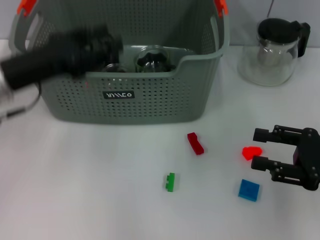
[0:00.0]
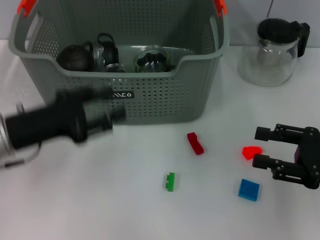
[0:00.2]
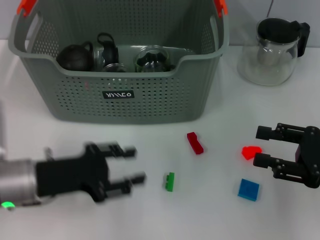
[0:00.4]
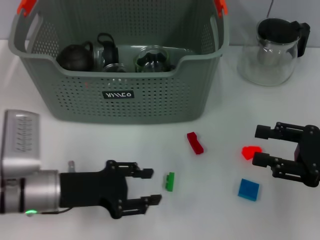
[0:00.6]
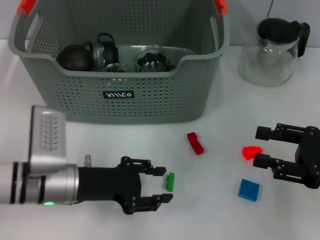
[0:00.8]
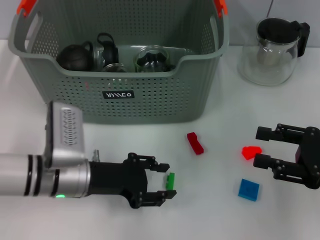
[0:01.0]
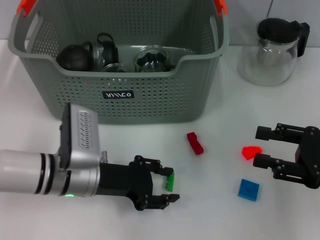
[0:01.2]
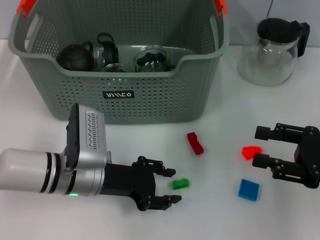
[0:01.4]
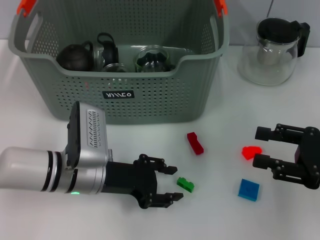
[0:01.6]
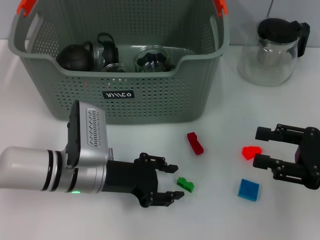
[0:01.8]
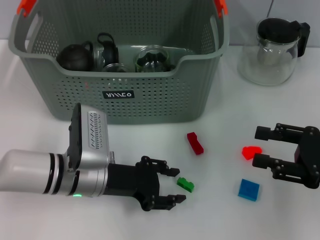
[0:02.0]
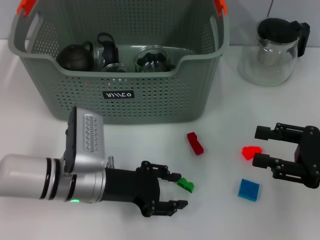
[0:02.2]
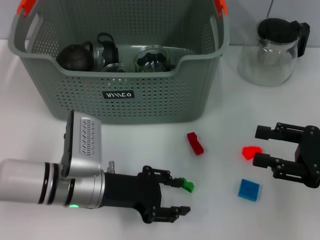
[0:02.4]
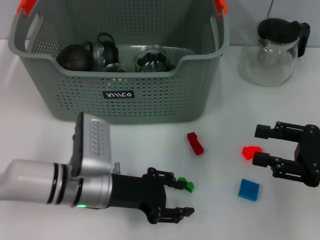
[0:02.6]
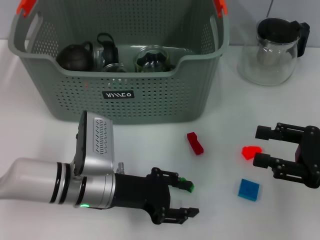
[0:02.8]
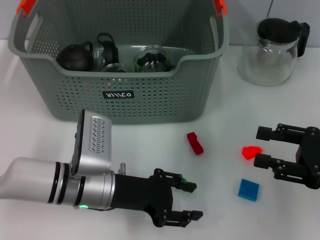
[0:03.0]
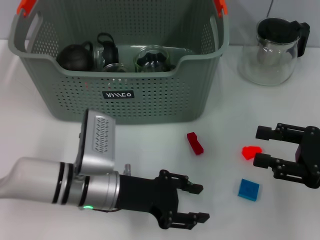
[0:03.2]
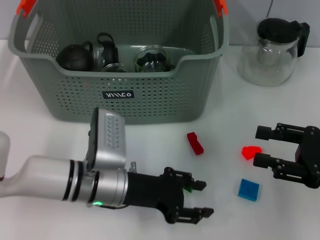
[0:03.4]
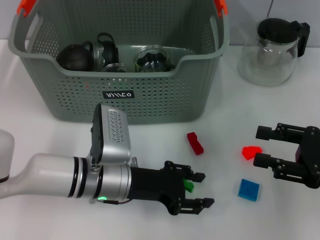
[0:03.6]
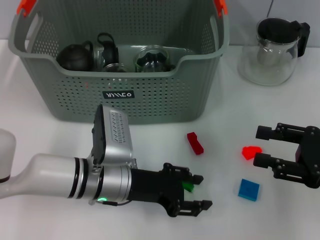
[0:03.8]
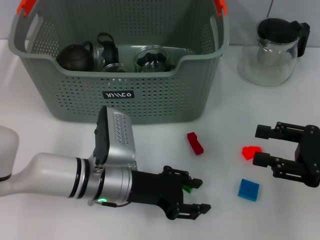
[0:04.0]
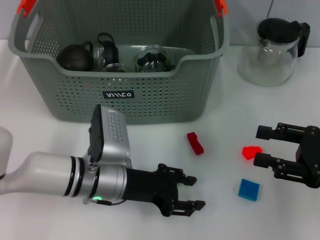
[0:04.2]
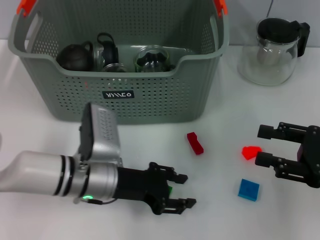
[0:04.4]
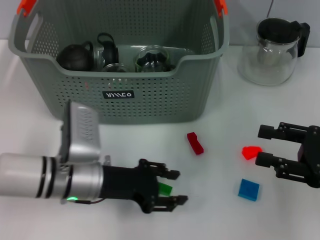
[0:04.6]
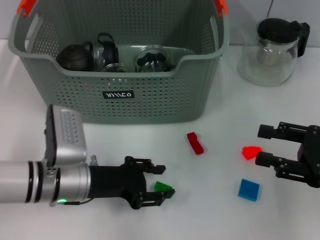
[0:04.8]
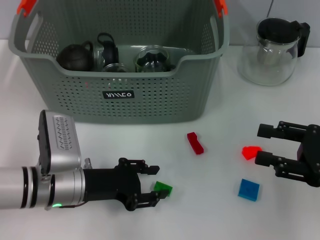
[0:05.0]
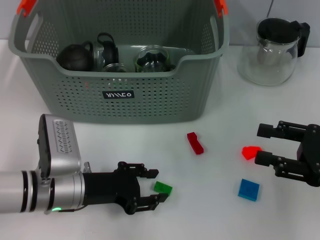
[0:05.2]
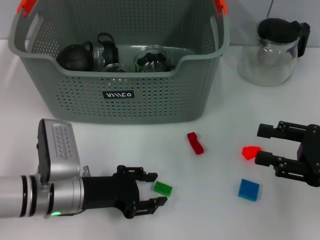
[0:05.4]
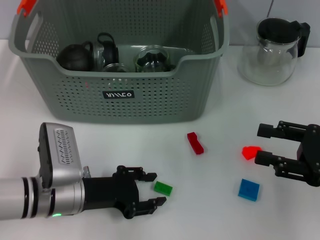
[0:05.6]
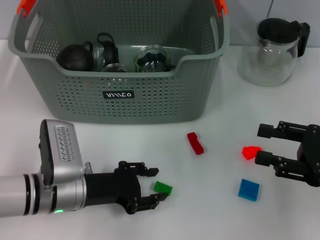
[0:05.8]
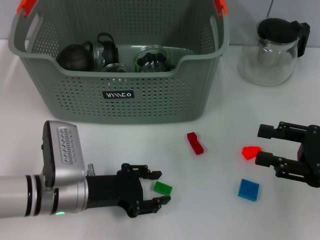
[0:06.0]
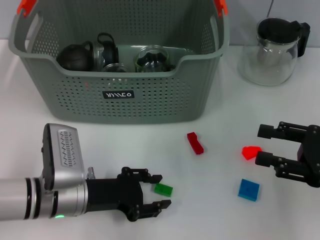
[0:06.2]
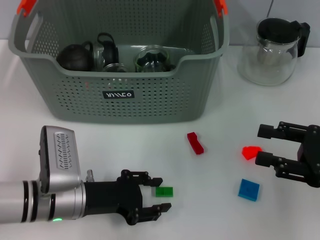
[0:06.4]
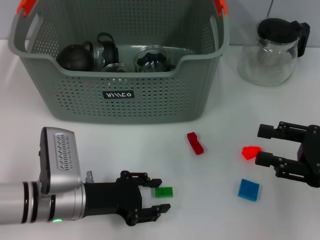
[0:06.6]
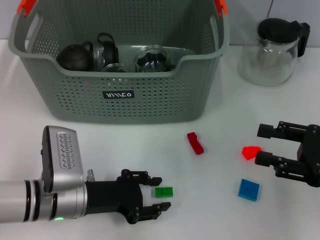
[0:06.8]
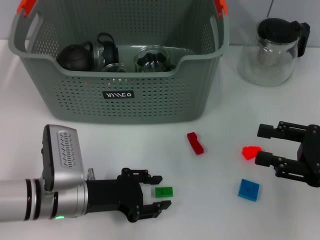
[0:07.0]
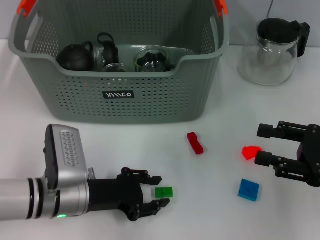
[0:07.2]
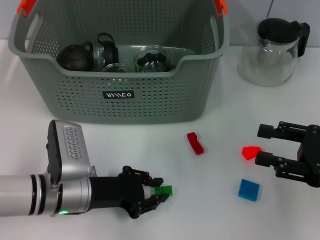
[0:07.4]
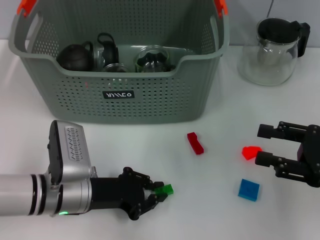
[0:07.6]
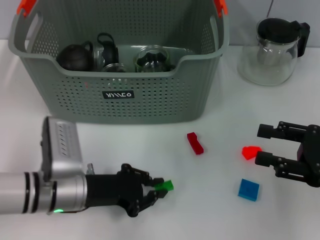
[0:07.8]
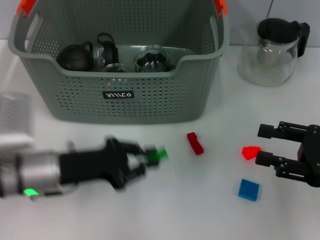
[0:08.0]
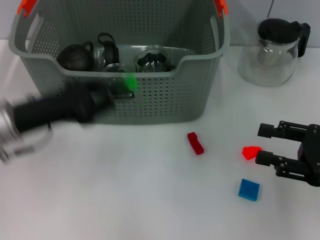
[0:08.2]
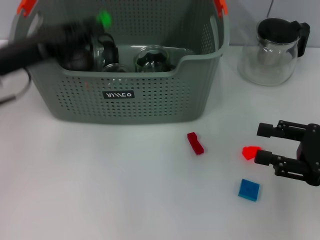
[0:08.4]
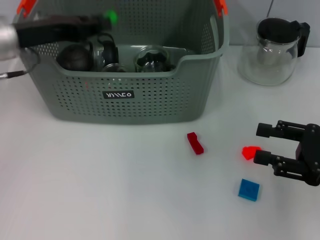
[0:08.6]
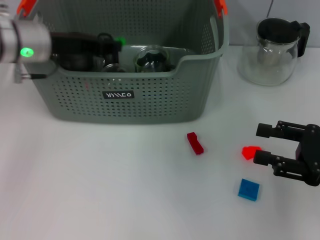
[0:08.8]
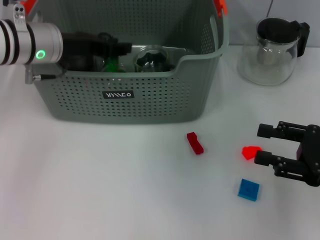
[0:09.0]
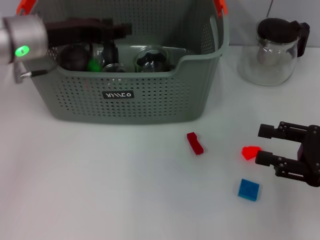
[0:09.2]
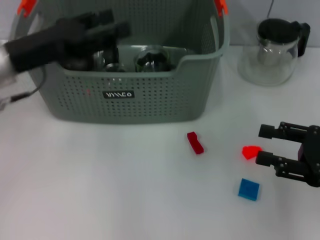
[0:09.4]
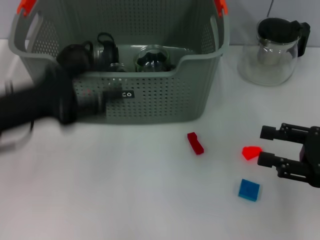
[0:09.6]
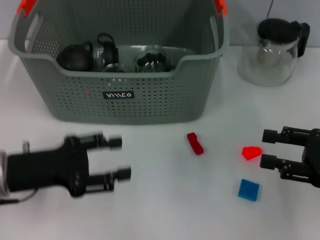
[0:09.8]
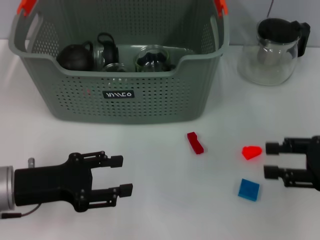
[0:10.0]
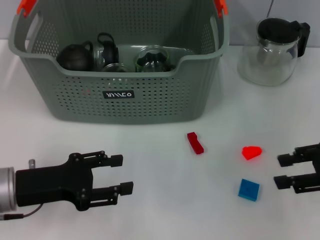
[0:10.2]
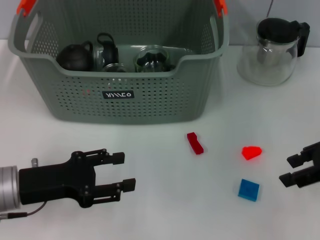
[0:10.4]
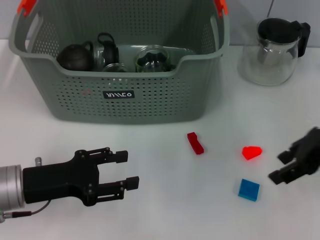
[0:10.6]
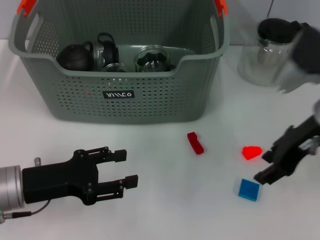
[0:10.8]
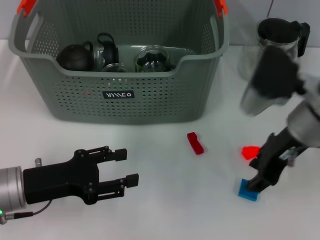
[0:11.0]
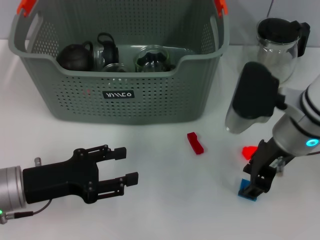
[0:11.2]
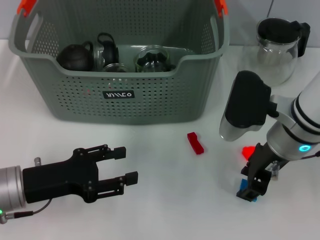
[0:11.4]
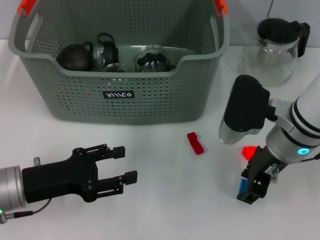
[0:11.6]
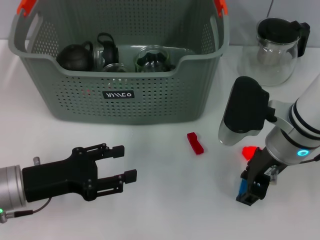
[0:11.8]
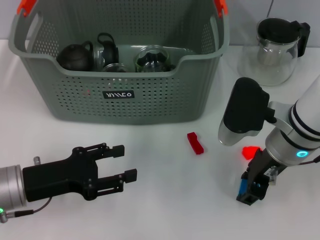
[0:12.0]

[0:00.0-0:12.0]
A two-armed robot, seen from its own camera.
Task of the whole recording: pick up the teacup on the table and place it into the storage bin, pick up the block on the table and place it into the storage bin.
Step, 0:00.0 to 0:07.4: Grasp the green block with left gripper.
Step, 0:07.8 to 0:09.2: Place the green block in the storage box with left gripper.
0:00.0 to 0:01.6: The left gripper moves downward and to the right, roughly 15 cm.
0:01.6 to 0:06.0: The grippers stay close to where they were, moving slightly.
0:06.0 to 0:07.6: The two grippers keep their place.
0:07.6 to 0:09.0: The left gripper heads upward and forward, covering some 20 cm.
0:09.0 to 0:10.4: The left gripper moves backward and downward, approximately 20 cm, and opens. The right gripper shifts some 10 cm upward and forward.
0:10.4 to 0:12.0: The right gripper goes some 15 cm to the left.

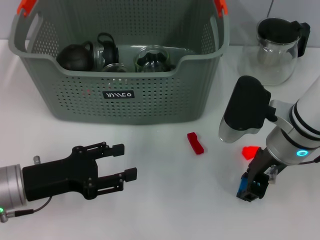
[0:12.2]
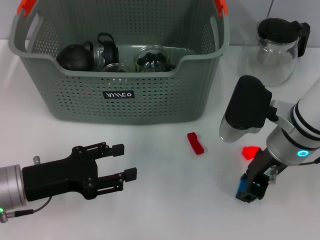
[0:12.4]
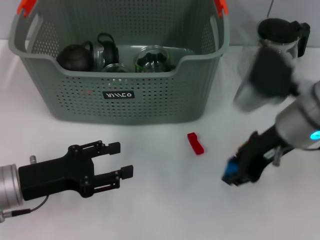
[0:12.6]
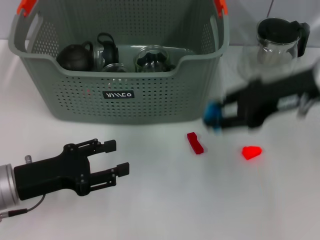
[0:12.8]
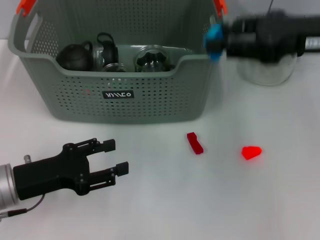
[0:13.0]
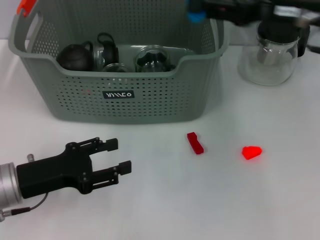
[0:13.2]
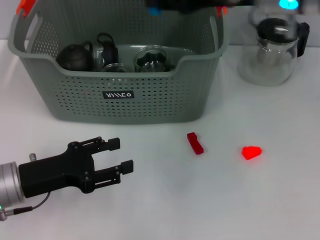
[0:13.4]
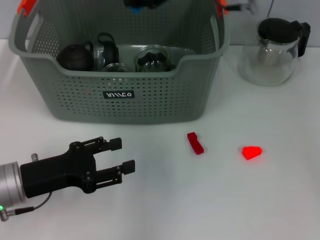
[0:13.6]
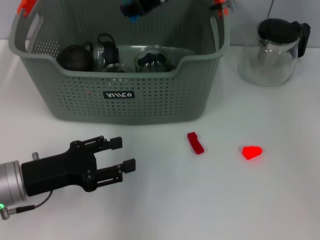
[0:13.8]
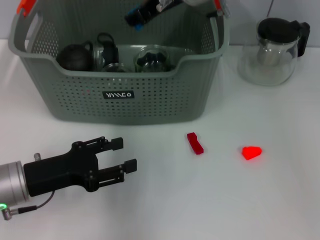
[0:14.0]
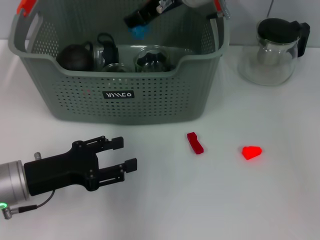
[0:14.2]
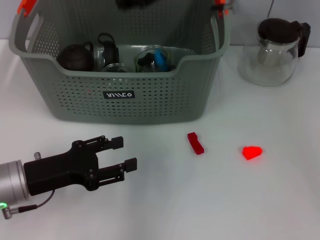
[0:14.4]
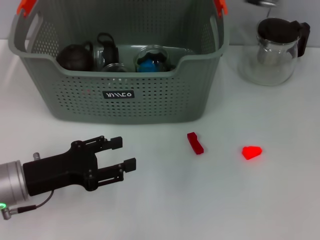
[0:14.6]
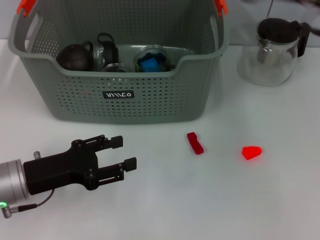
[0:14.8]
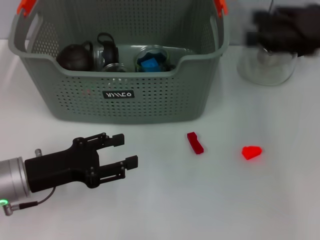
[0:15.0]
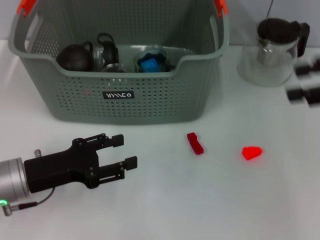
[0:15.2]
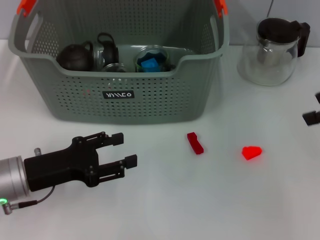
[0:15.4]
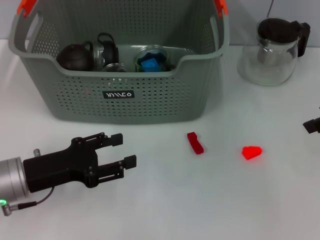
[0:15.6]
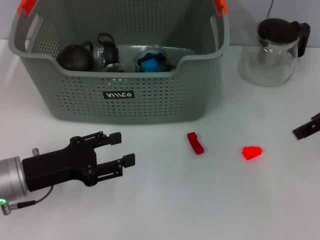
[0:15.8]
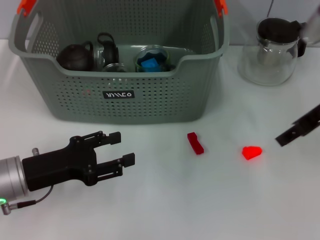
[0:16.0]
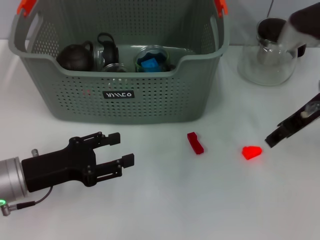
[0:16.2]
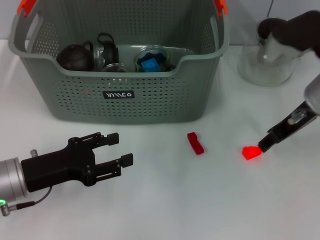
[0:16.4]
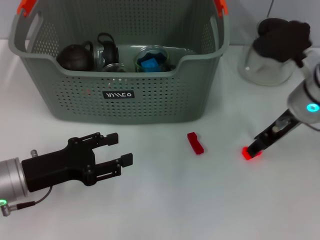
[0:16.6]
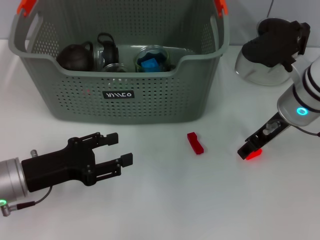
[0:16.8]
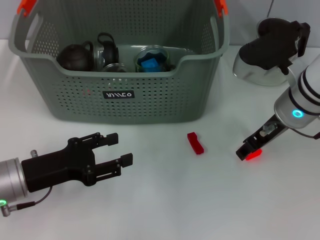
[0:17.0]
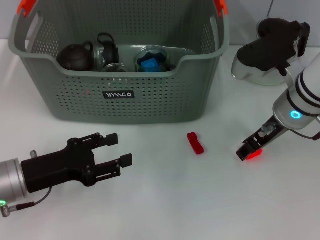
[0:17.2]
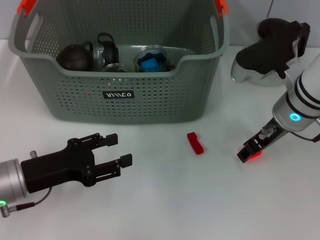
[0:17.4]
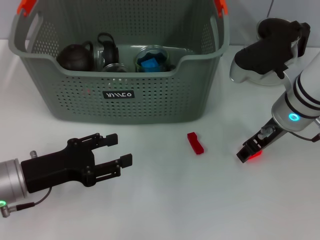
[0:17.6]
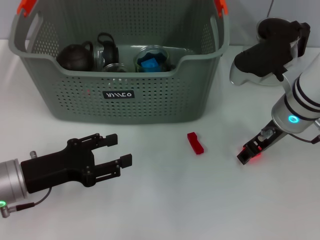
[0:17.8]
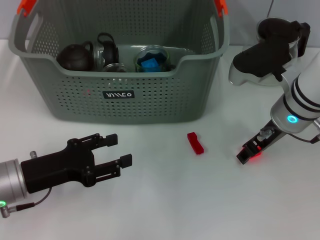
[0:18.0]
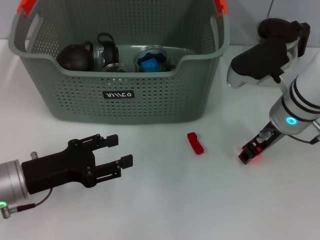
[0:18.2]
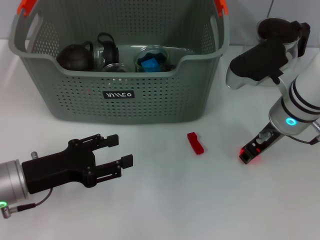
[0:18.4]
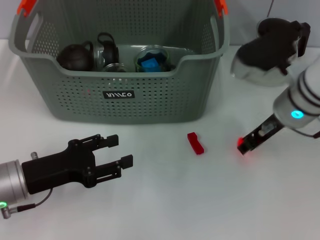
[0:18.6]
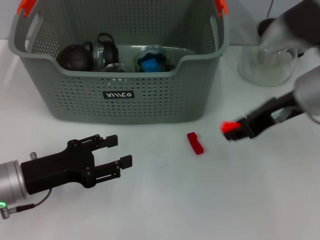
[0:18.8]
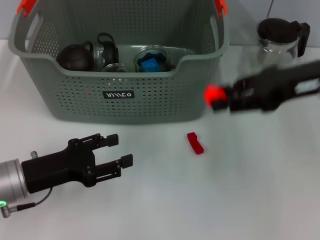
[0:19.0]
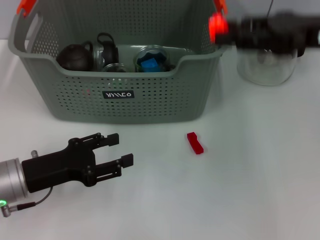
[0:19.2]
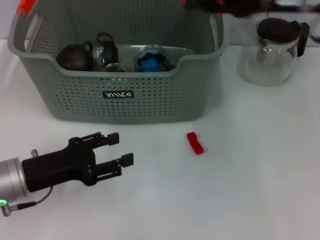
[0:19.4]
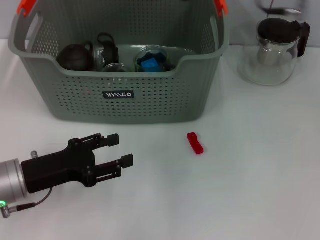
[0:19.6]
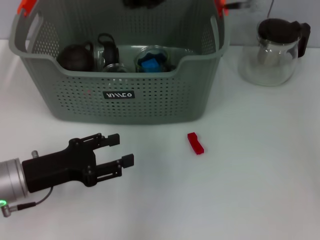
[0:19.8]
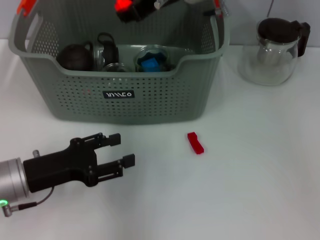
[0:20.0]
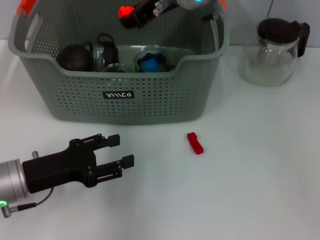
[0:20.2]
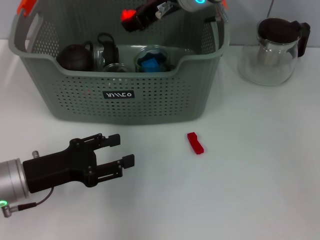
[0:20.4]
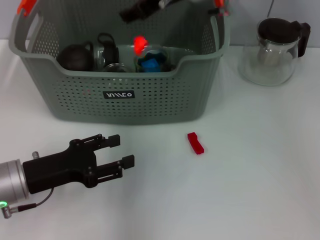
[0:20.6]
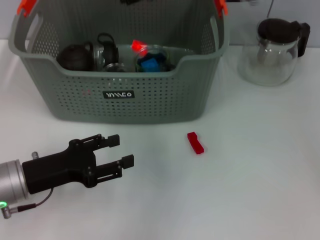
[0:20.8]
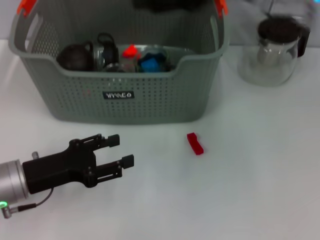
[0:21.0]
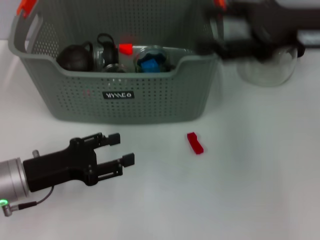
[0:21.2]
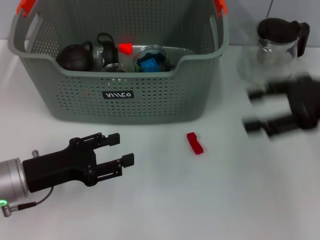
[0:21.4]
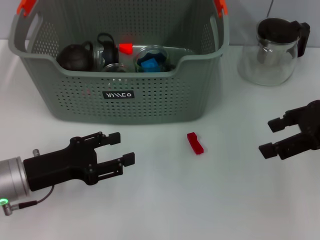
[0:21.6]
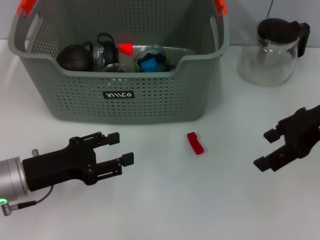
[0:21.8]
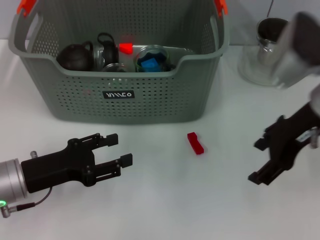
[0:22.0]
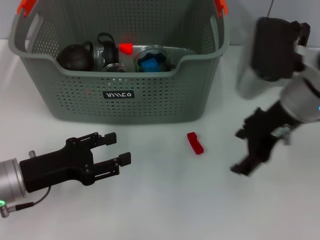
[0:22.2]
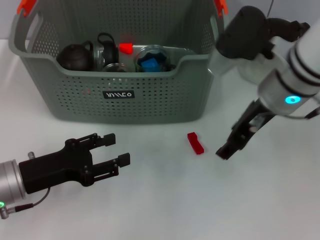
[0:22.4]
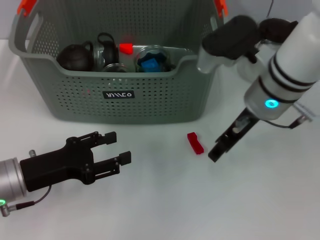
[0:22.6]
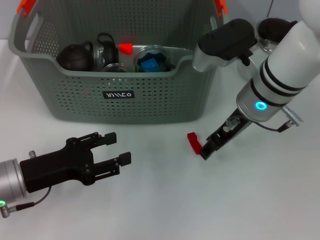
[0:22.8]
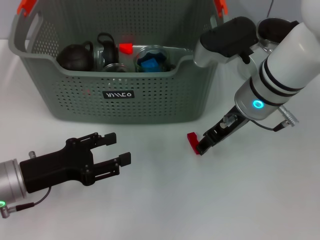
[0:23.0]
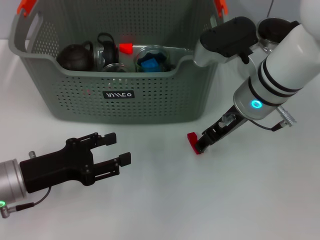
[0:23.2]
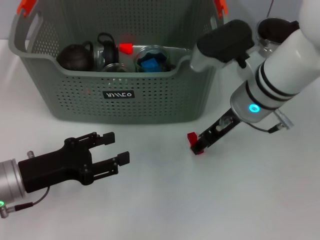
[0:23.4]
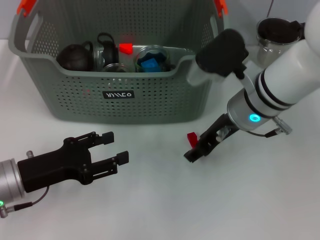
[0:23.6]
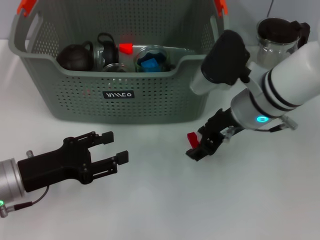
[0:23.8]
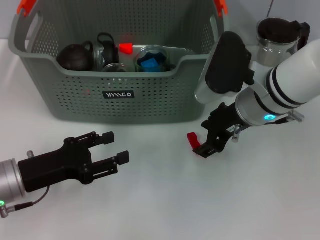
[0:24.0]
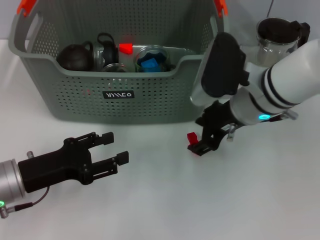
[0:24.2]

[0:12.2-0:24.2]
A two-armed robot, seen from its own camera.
Task of the whole recording: pick up the teacup on the table and place it into the storage bin, pick up the block on the table and place it into the storage bin.
Step, 0:12.2 to 0:14.4: Place the dark blue block in the storage box with right gripper.
Step, 0:14.6 to 0:18.2: Grasp the orange block with right gripper.
Step, 0:18.4 to 0:21.0: Place the orange block in the storage box with right gripper.
0:12.2 to 0:13.8: The right gripper goes about 20 cm upward, forward and to the left.
0:13.8 to 0:15.2: The right gripper goes approximately 30 cm to the right and backward, and opens up.
0:15.2 to 0:16.6: The right gripper is displaced to the left and downward by some 15 cm.
0:16.6 to 0:18.2: There are only small adjustments of the grippers.
0:18.2 to 0:19.8: The right gripper is displaced upward, to the left and forward by roughly 20 cm.
0:19.8 to 0:21.2: The right gripper goes some 20 cm to the right and backward, and opens its fingers.
0:21.2 to 0:22.6: The right gripper moves to the left and downward, about 15 cm.
